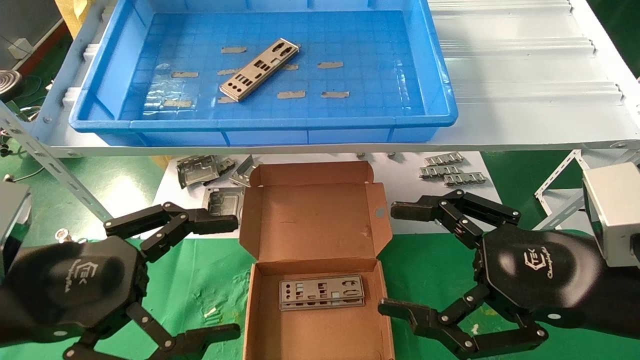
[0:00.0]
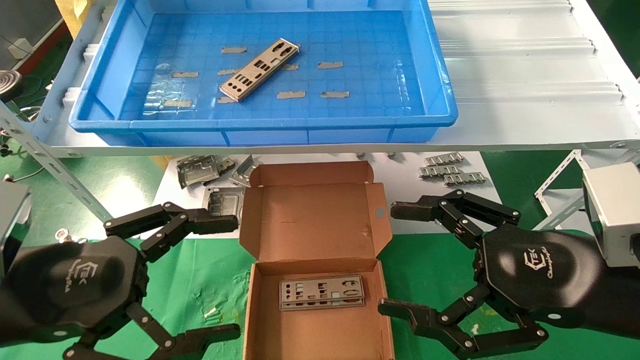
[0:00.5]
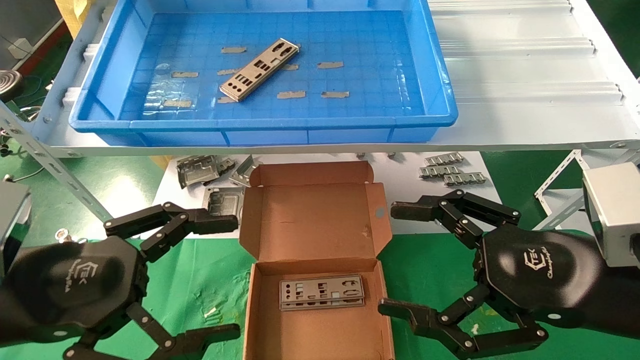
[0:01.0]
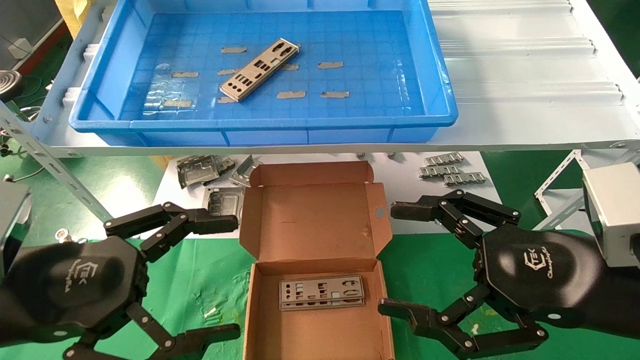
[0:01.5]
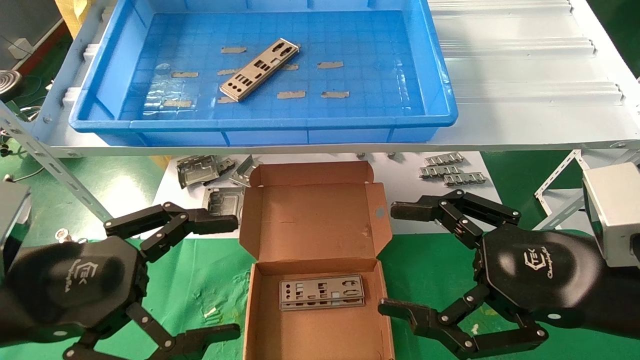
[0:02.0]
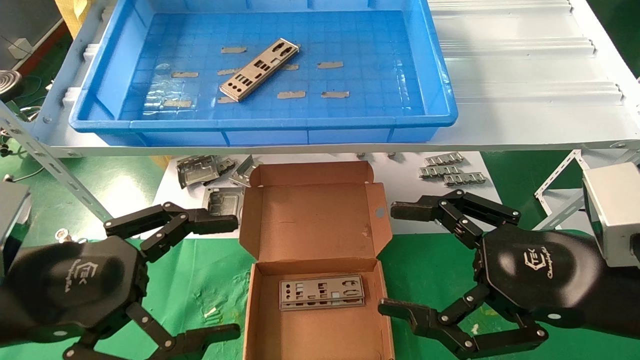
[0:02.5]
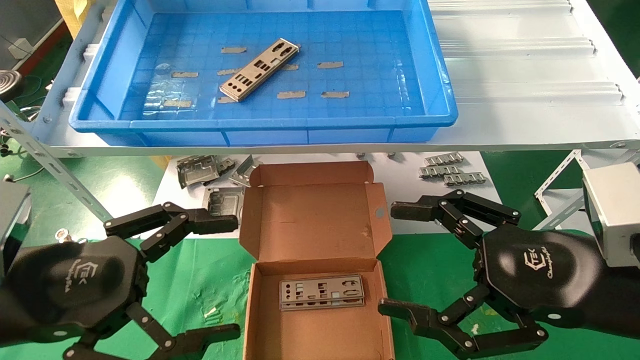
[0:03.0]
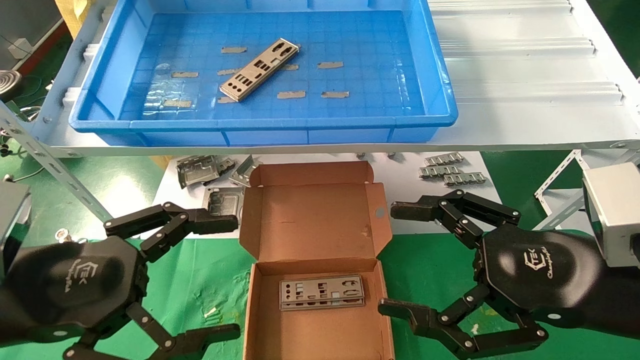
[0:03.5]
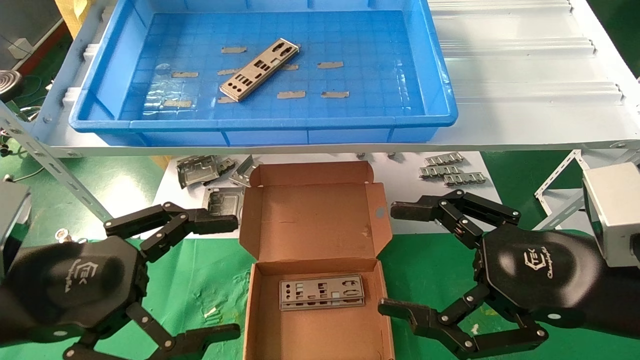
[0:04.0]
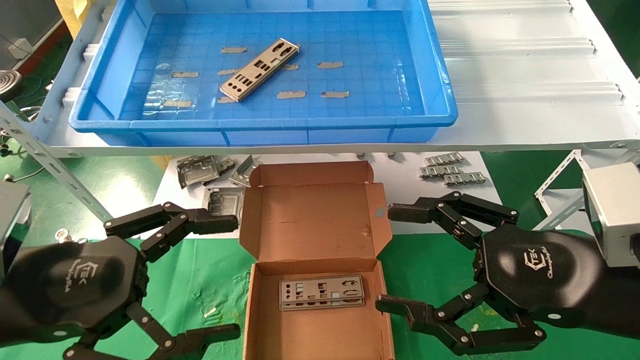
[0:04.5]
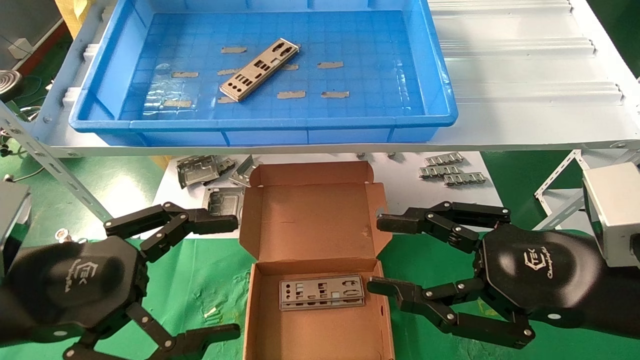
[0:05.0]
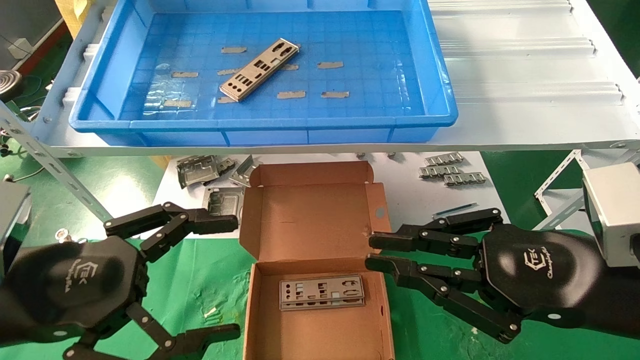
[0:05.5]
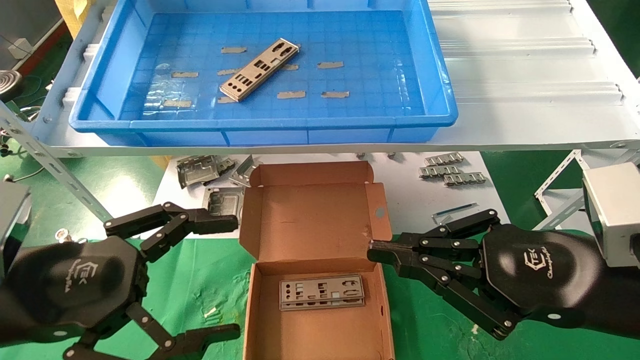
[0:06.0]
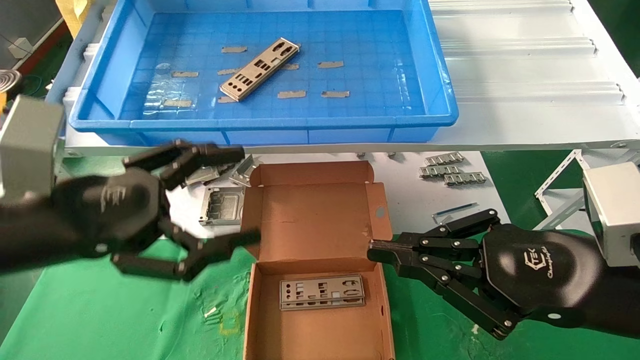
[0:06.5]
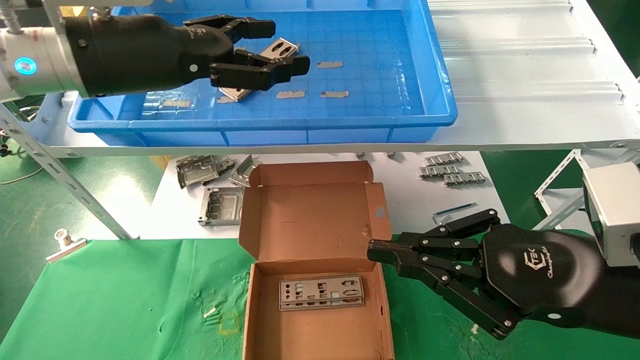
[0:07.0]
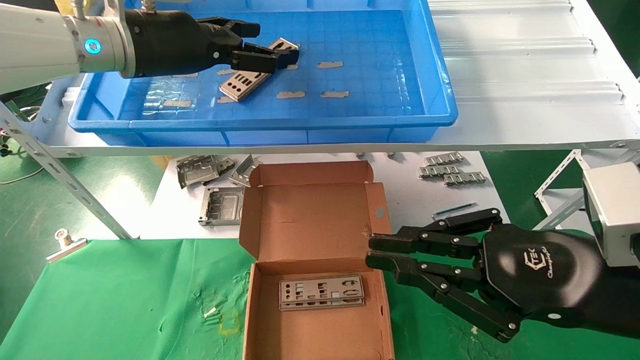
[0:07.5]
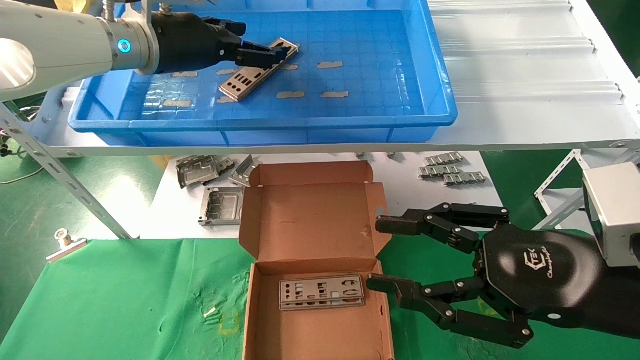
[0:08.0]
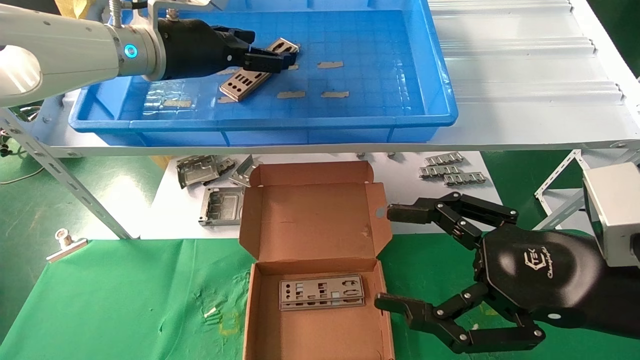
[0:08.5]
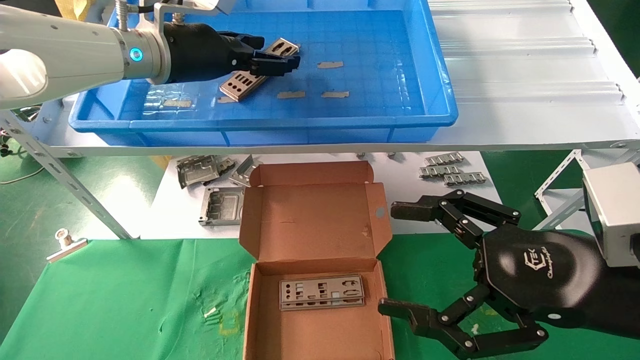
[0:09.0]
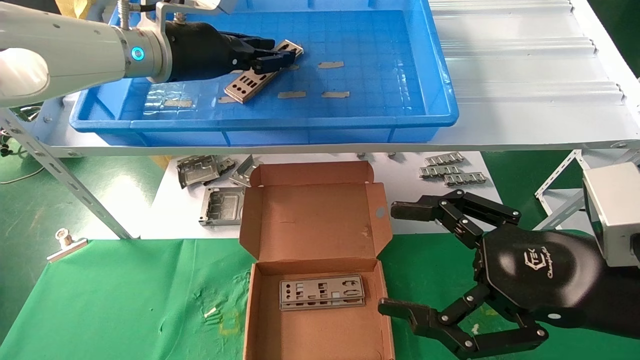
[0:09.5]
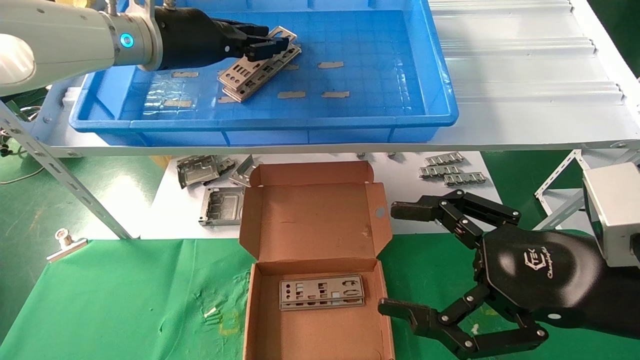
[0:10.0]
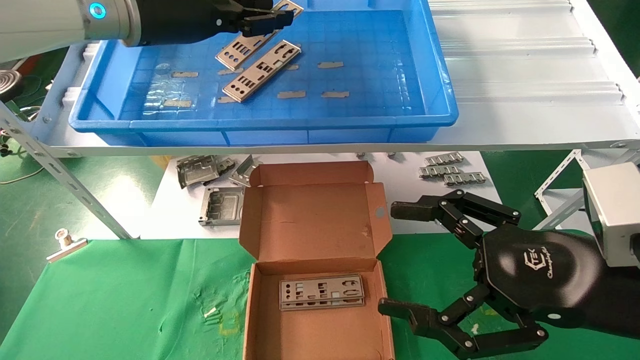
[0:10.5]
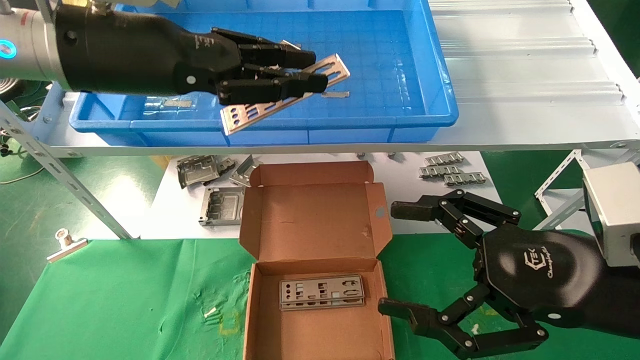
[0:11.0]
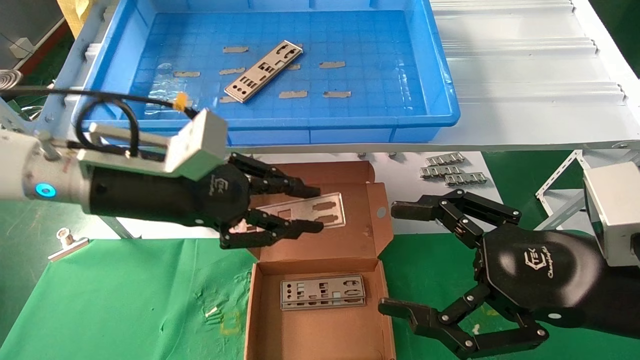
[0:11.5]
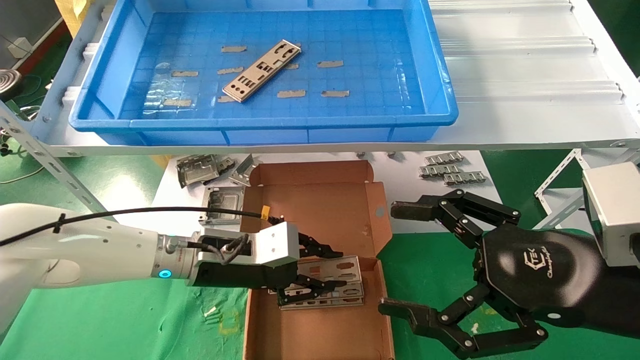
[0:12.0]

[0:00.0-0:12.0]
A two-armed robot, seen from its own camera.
Task of the whole recording: pick up the parts on the tray and put them in the cardboard box.
Step, 0:07.0 to 0:10.0: Pick up the IO bracket from the container box.
0:00.0 to 0:04.0: Neither gripper changes place.
0:04.0 to 0:06.0: The right gripper closes.
0:06.0 to 0:08.0: The left gripper moves forward and upward, roughly 30 cm.
0:08.0 to 0:10.0: The left gripper closes its fingers. The right gripper opens up.
0:10.0 to 0:12.0: The left gripper travels downward by about 25 cm.

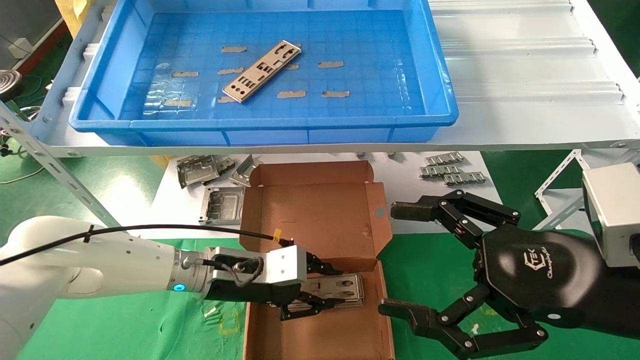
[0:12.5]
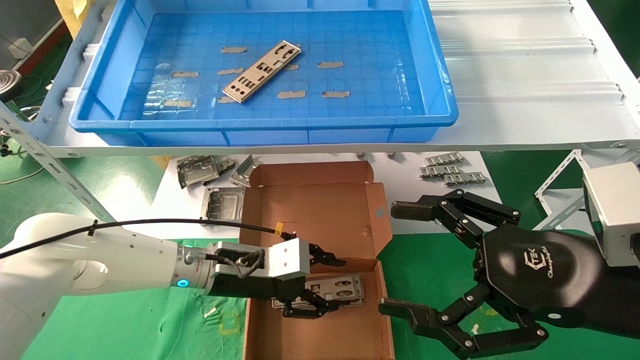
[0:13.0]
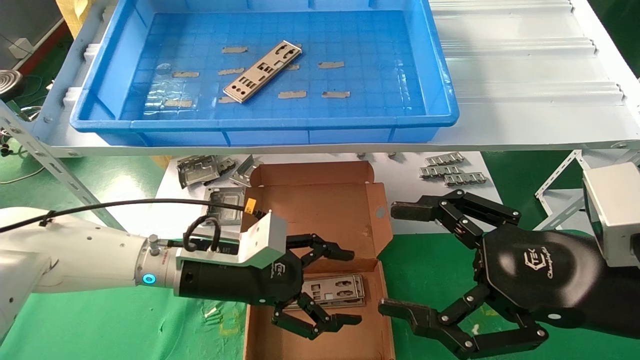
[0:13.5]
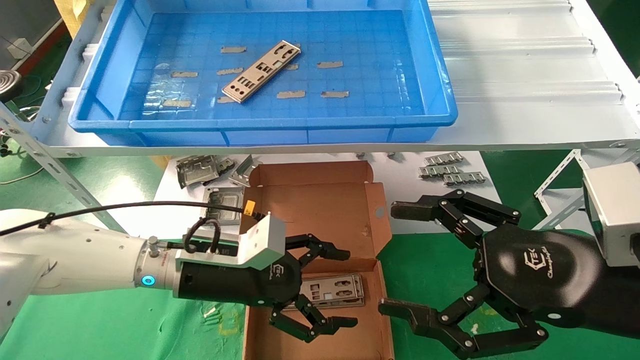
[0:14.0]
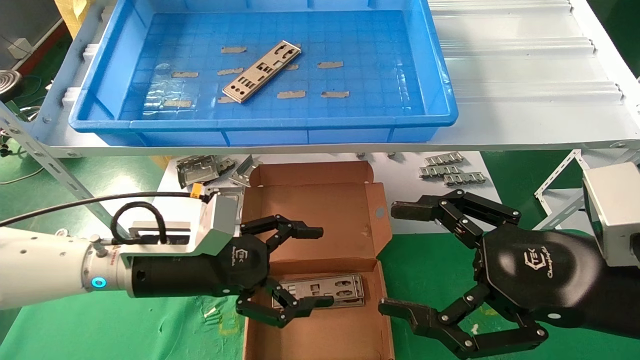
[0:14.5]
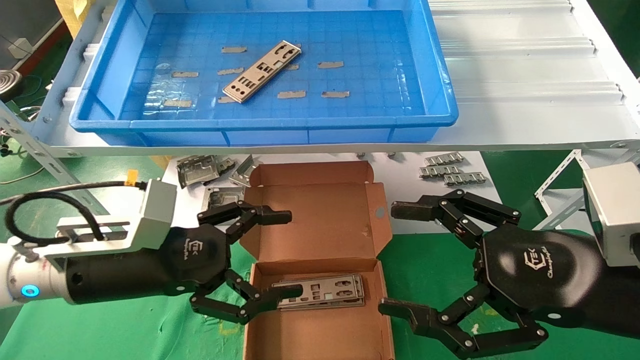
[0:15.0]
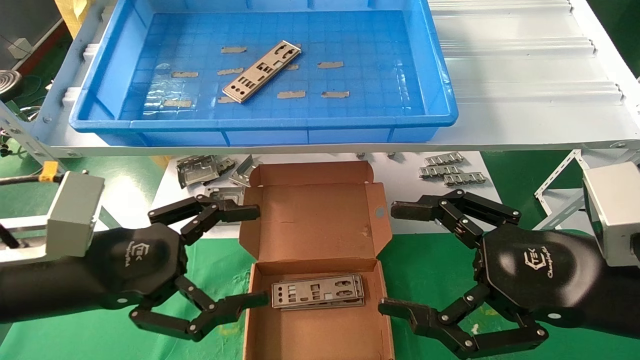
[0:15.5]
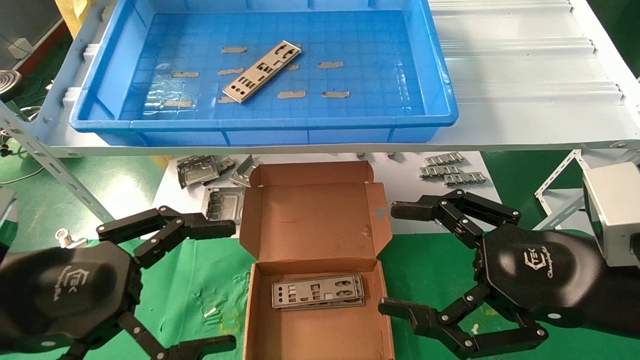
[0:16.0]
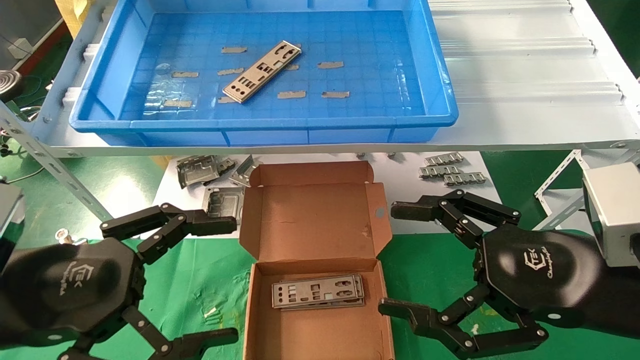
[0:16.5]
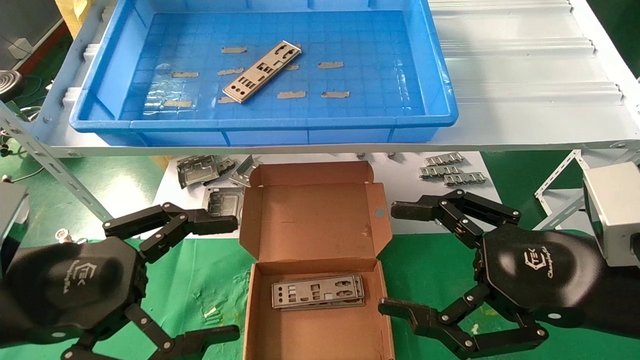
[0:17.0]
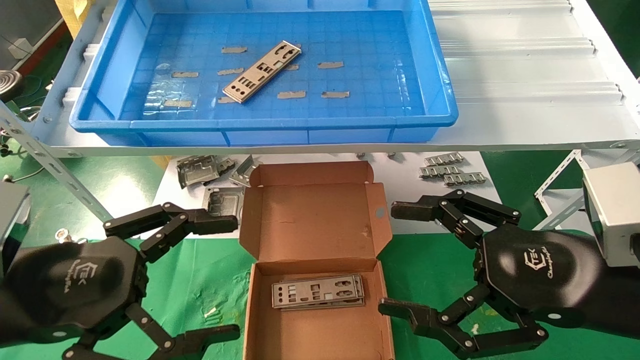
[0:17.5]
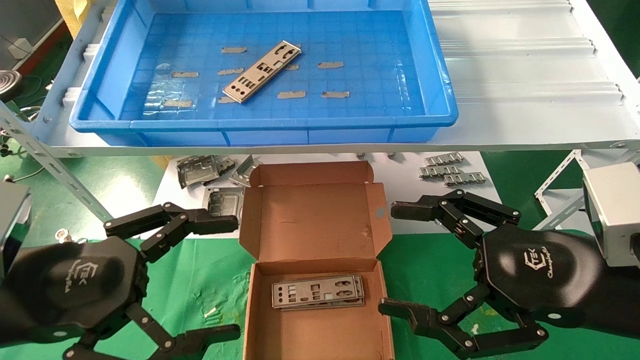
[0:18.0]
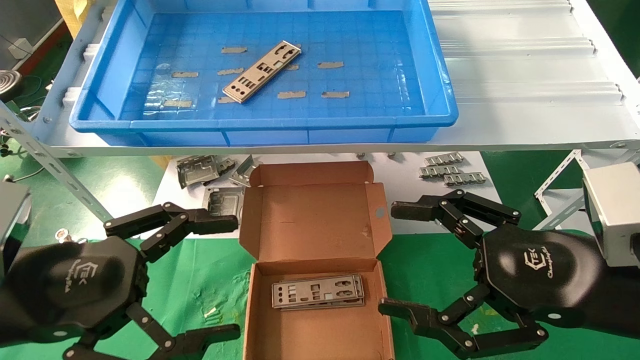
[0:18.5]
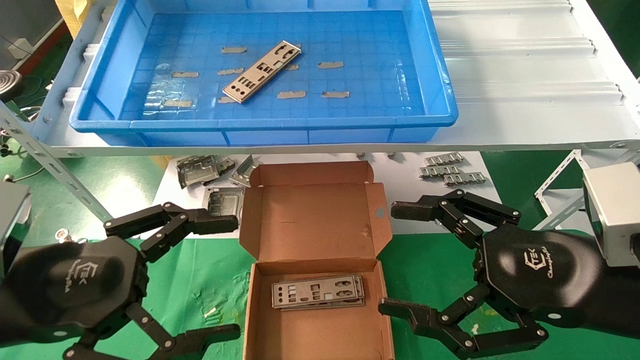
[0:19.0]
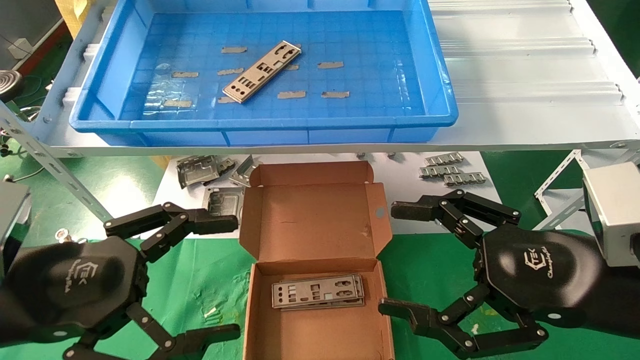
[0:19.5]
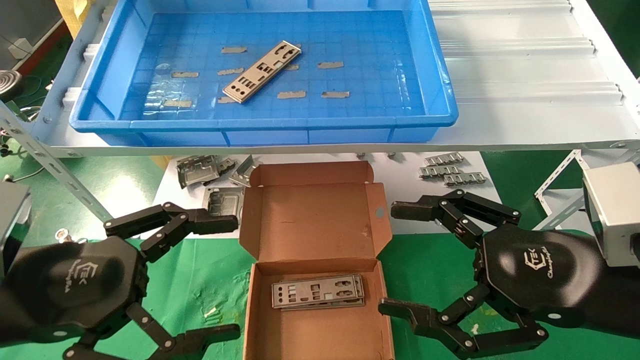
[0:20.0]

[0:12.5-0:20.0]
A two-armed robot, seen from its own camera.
Task of the whole recording: pick up the parts on the tray and put them in the cardboard box.
0:12.5 to 0:14.5: The left gripper shifts approximately 10 cm backward and to the left, and opens up.
0:14.5 to 0:16.5: The left gripper moves backward, to the left and upward, some 15 cm.
0:16.5 to 0:20.0: The two grippers keep their place.
